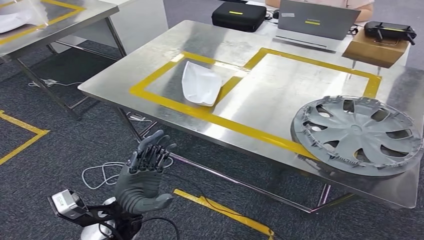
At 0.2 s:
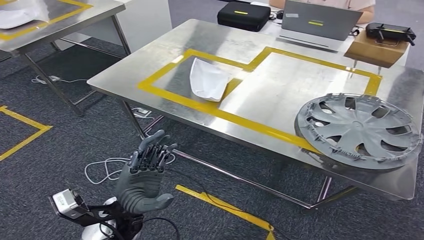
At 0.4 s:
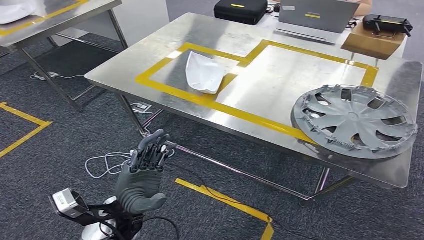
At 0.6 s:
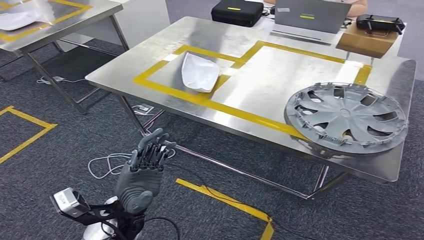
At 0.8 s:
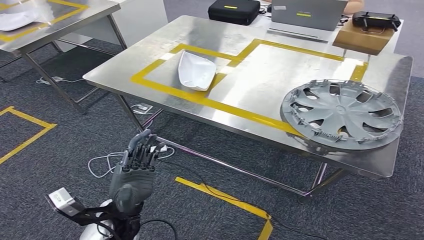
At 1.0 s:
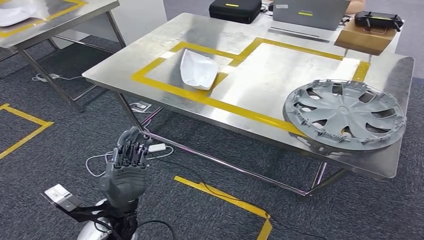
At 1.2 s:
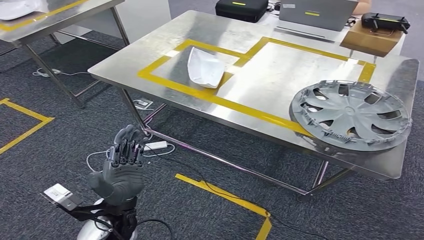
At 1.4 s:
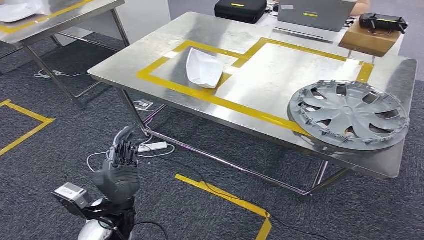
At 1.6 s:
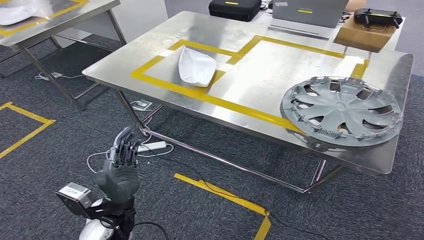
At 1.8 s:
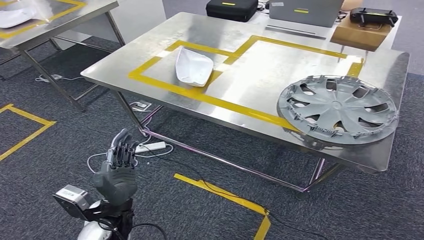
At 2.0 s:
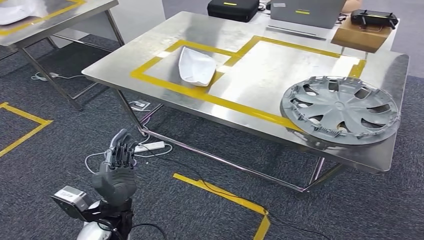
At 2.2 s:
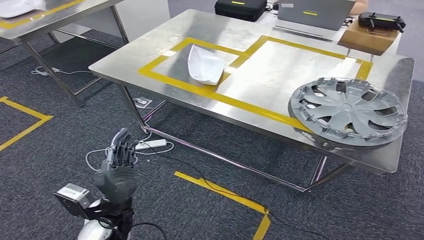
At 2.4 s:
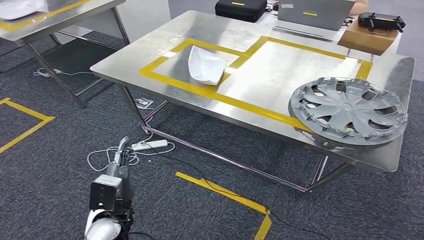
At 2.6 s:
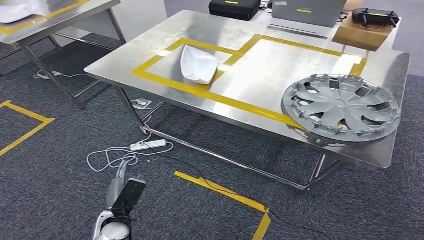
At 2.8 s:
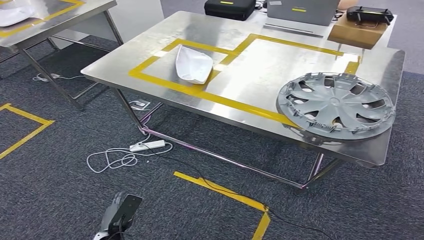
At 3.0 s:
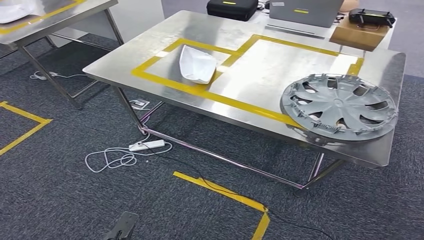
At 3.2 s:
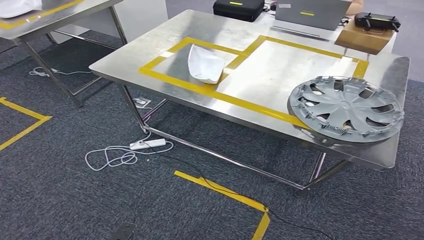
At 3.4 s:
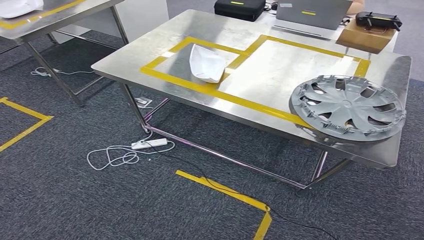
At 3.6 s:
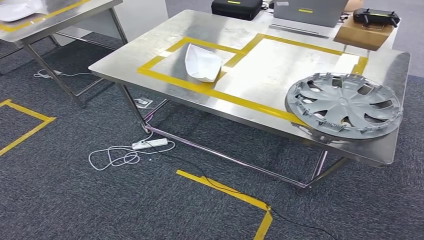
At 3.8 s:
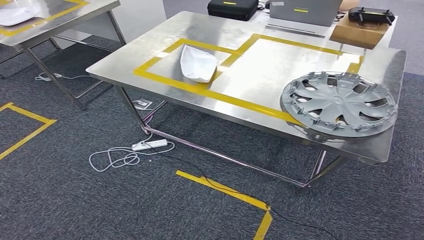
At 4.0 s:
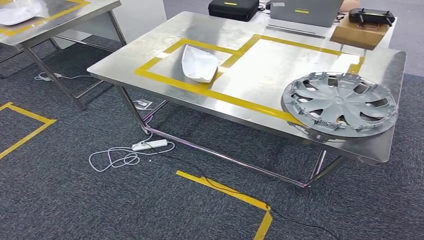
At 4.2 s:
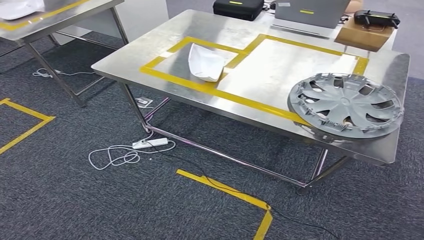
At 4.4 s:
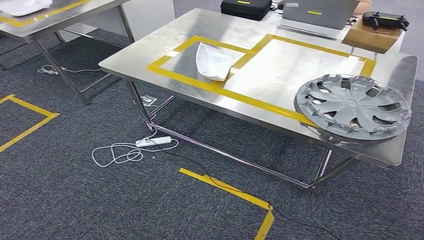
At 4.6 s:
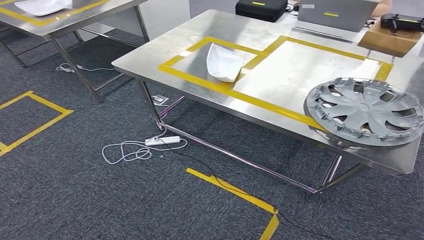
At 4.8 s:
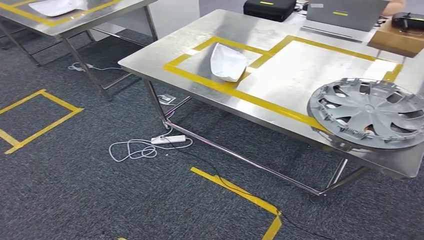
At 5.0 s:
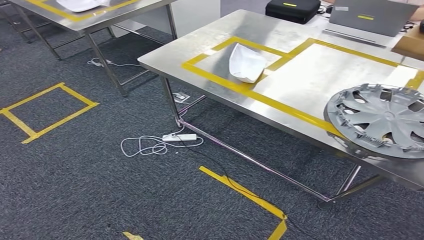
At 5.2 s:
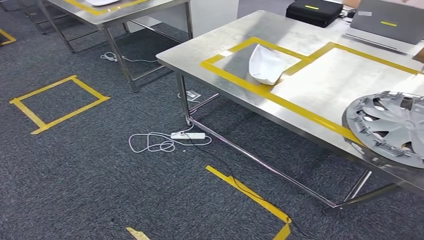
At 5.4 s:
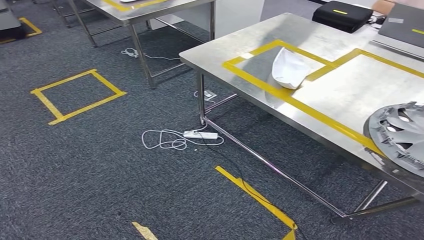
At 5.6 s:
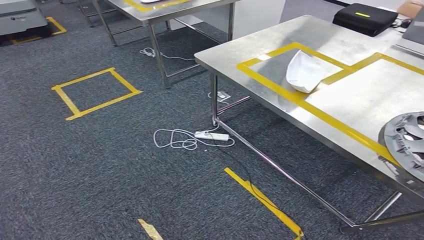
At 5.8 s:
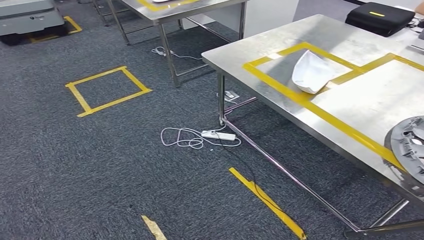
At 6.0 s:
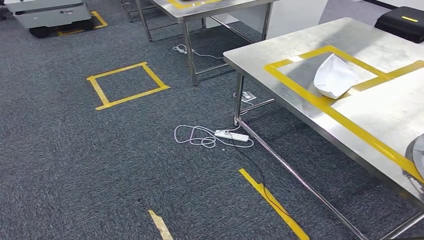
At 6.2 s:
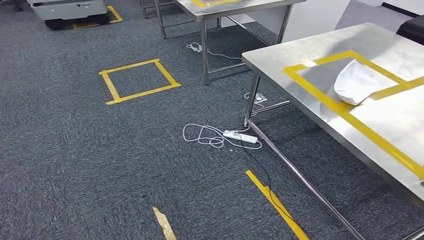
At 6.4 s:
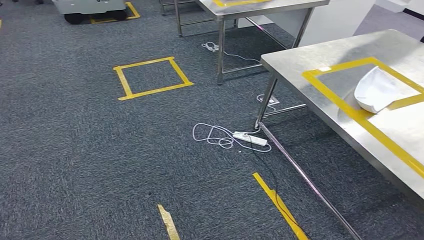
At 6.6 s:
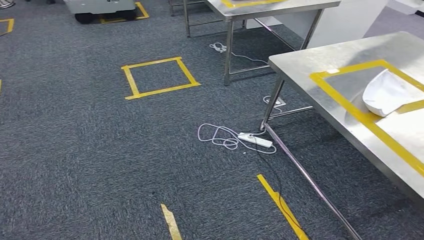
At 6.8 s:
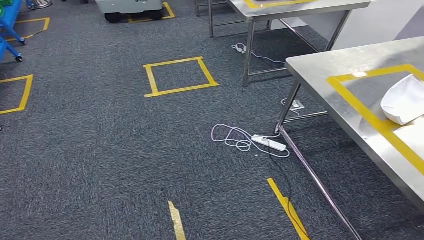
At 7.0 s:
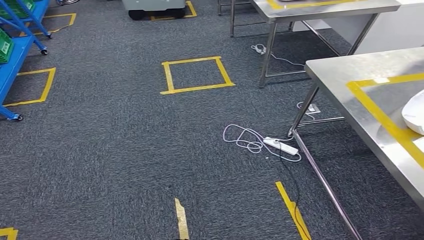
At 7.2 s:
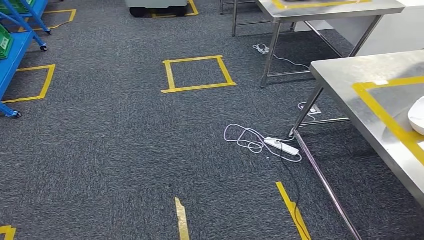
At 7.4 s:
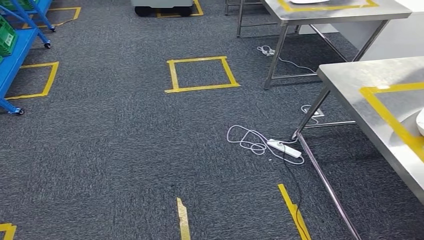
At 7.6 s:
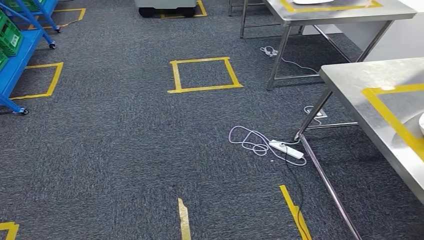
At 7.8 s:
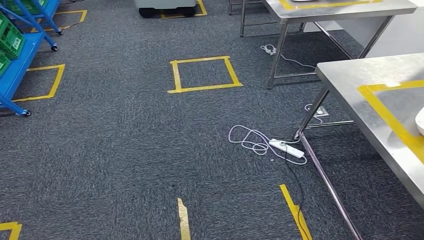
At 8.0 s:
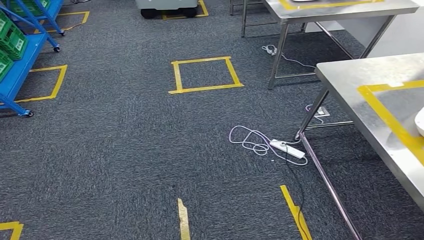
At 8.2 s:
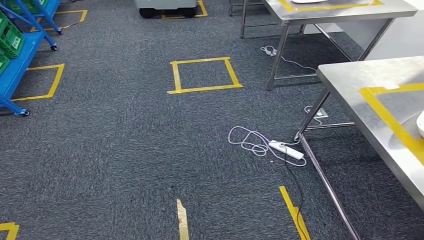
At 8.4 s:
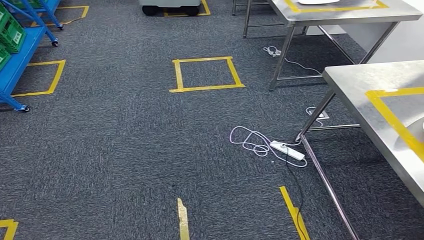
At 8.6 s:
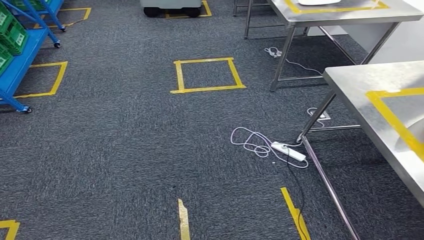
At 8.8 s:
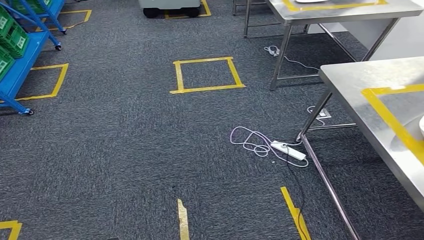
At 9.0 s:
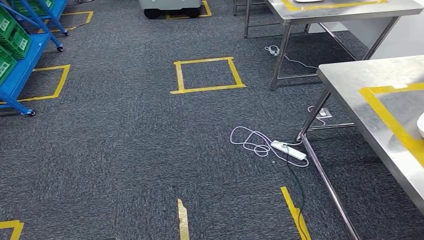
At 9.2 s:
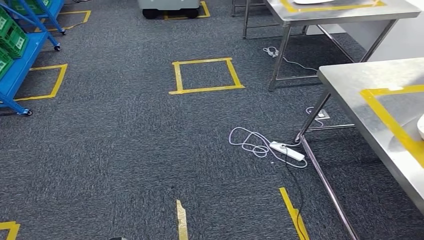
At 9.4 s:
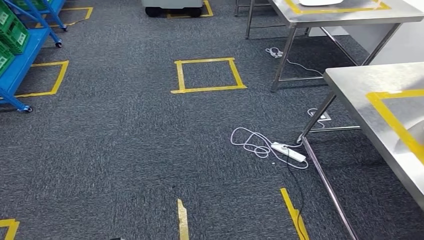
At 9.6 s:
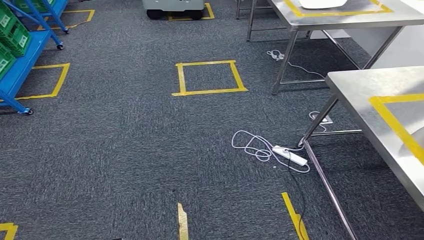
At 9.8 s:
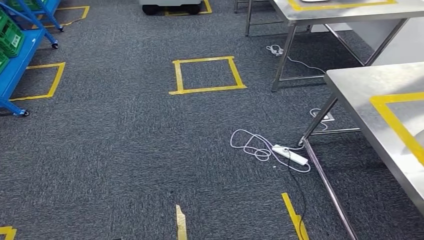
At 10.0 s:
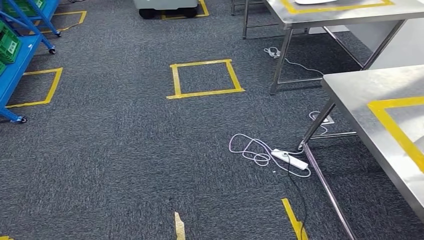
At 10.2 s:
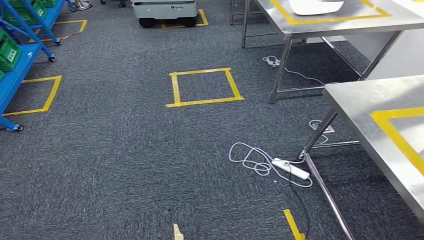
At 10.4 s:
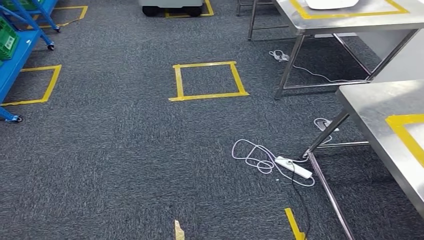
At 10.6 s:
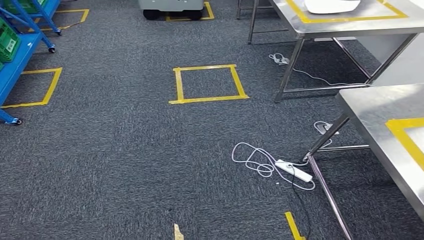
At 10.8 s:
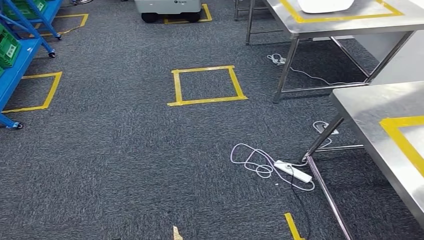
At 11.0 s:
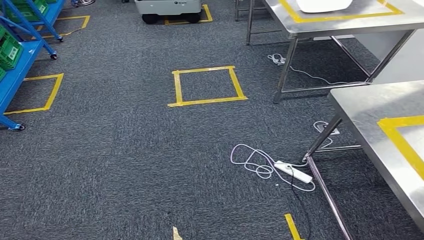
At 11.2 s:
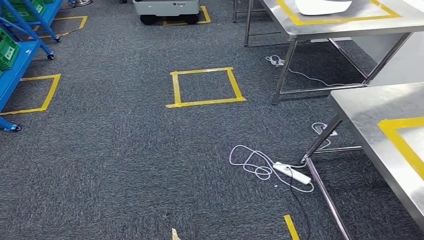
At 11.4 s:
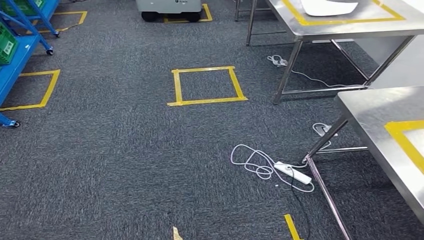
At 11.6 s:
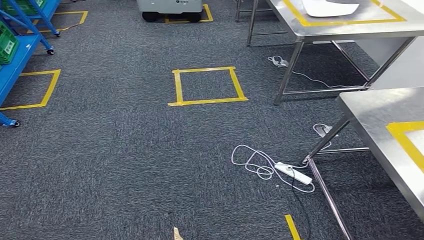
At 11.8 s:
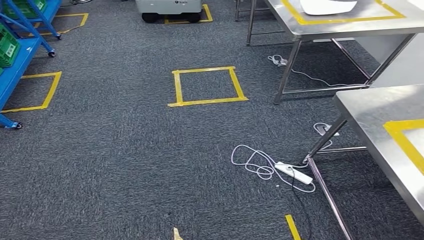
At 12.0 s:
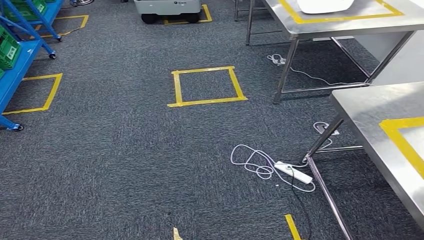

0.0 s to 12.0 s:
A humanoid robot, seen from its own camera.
Step, 0.0 to 3.2 s: Insert the small parts into the corresponding slots on the workbench.

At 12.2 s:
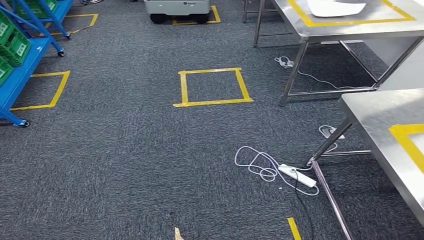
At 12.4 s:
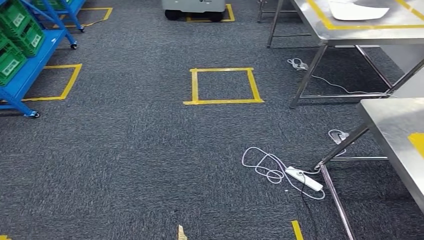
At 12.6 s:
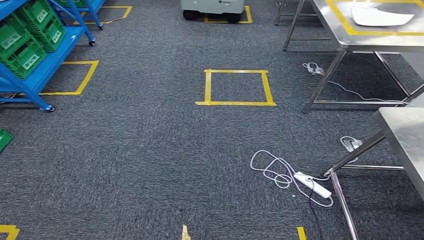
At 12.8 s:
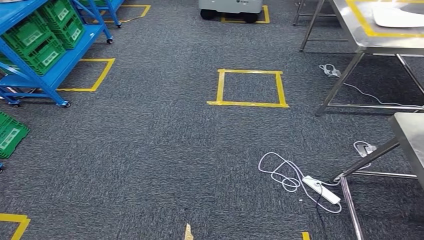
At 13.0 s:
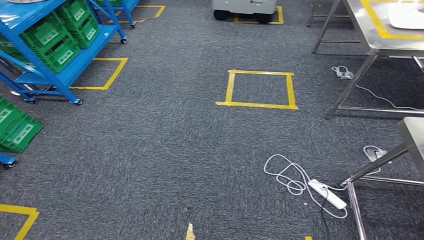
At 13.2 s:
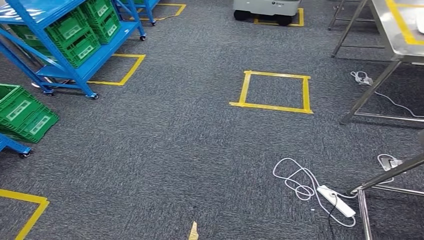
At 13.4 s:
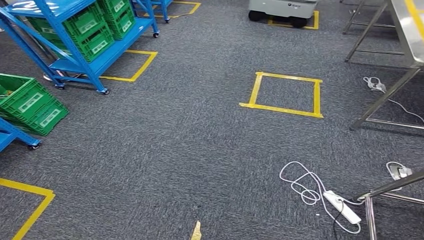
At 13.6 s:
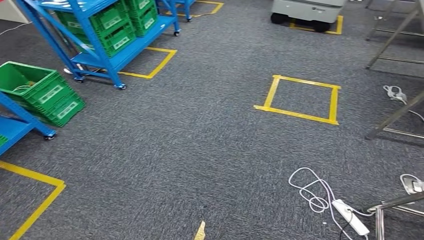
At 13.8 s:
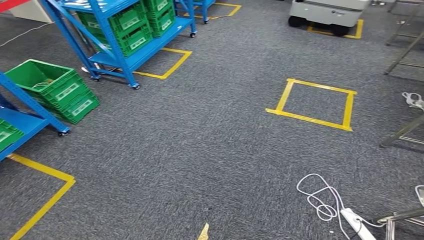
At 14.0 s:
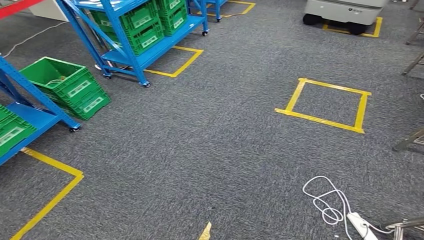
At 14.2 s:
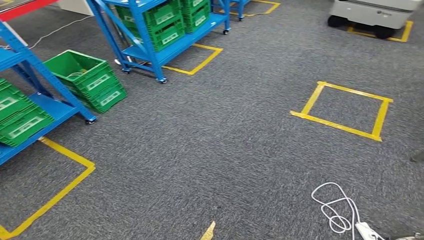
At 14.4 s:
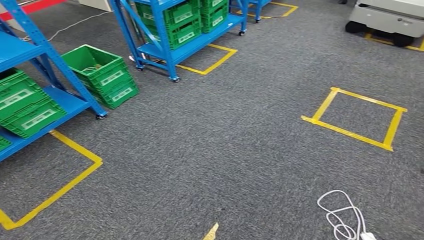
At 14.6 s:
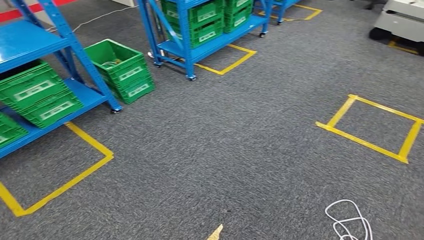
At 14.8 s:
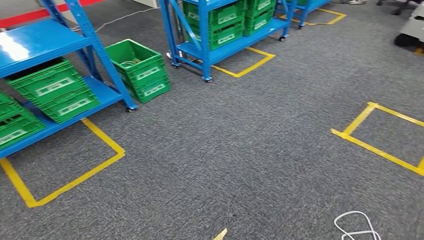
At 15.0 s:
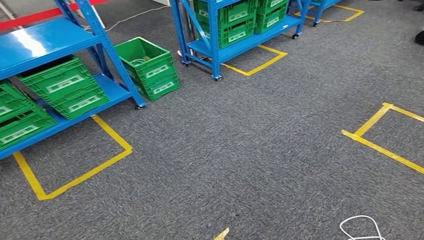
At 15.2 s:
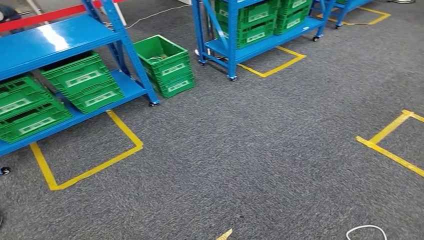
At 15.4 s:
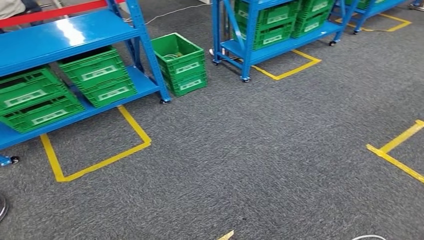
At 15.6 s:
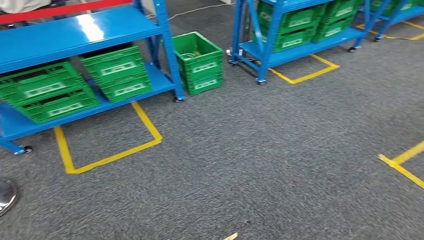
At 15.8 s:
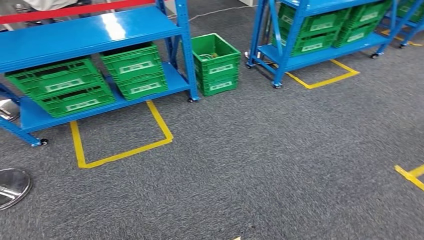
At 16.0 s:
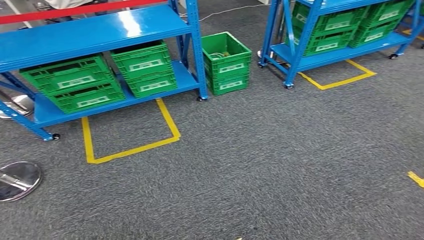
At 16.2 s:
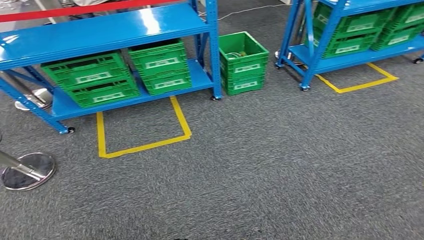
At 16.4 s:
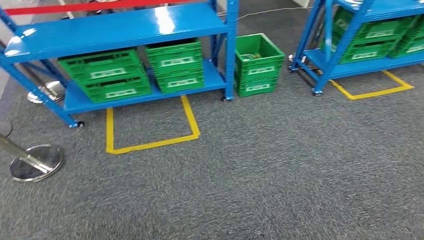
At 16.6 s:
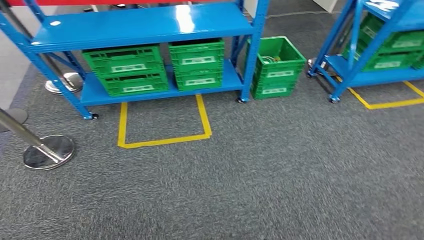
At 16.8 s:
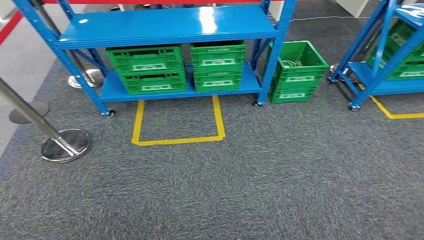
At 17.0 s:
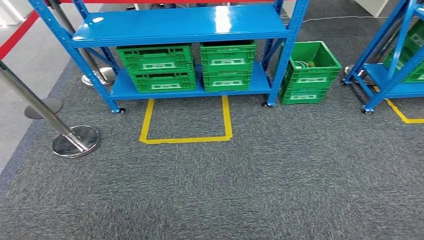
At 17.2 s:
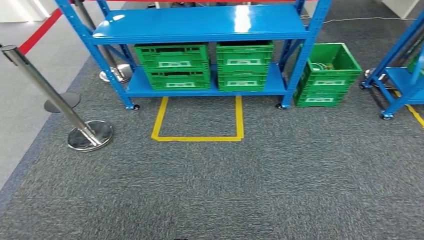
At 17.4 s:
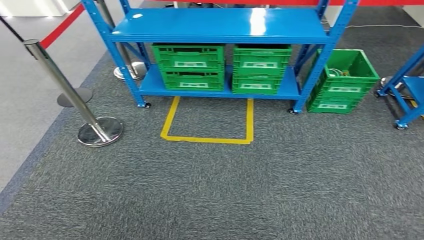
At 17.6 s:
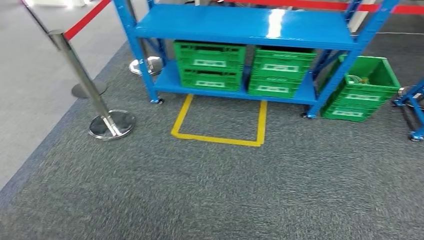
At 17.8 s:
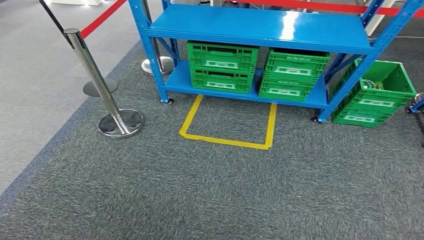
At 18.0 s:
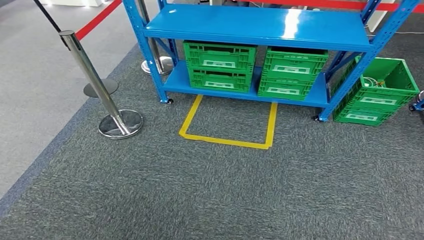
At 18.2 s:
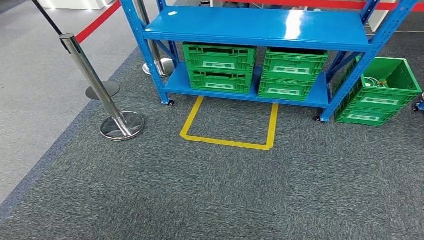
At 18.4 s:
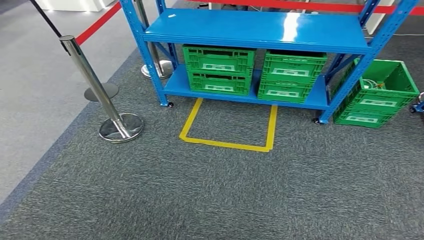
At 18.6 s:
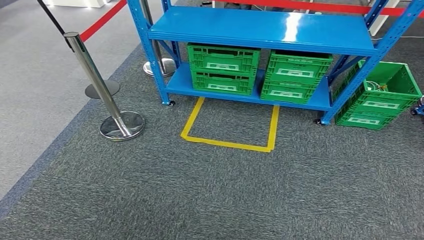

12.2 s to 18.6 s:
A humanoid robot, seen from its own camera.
Step, 12.2 to 18.6 s: Return to the initial position at the workbench.
